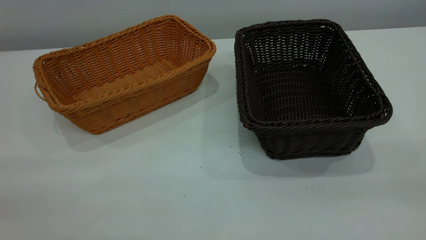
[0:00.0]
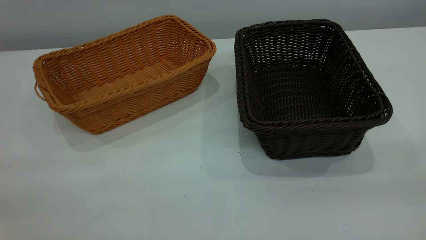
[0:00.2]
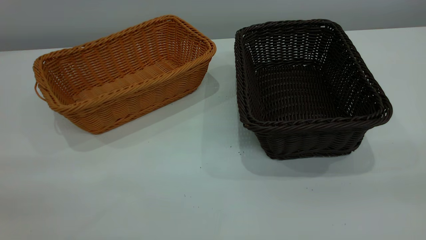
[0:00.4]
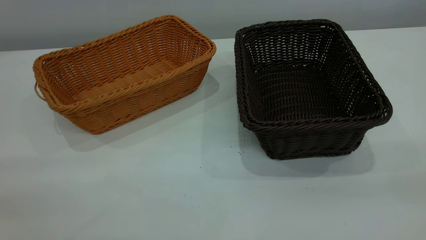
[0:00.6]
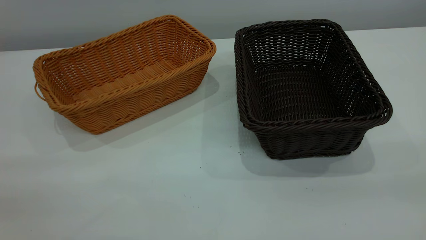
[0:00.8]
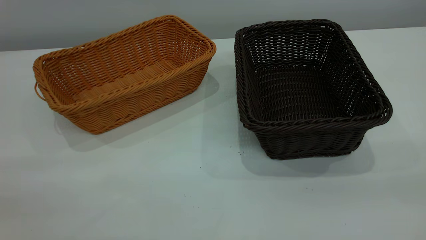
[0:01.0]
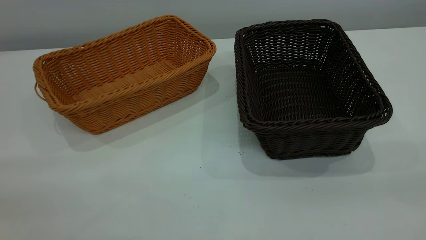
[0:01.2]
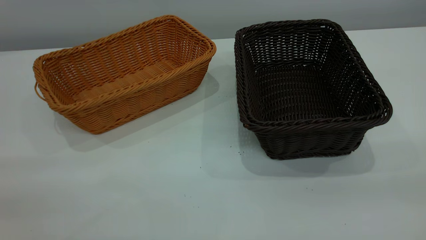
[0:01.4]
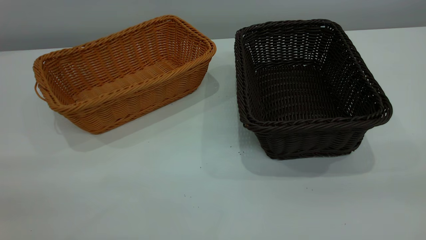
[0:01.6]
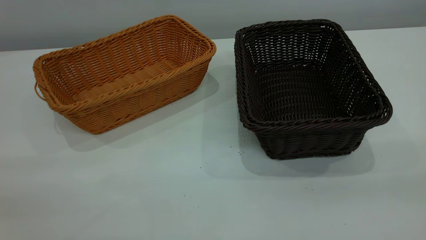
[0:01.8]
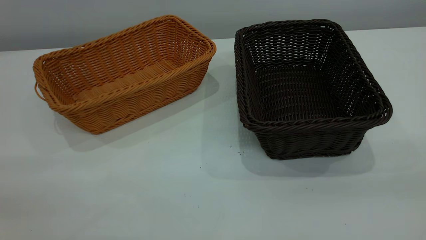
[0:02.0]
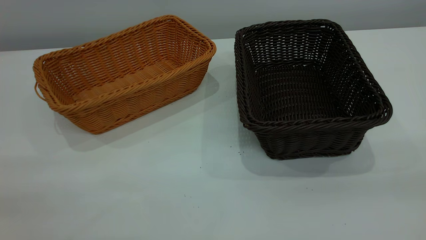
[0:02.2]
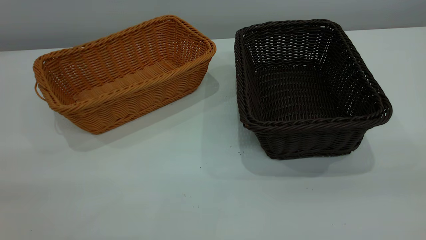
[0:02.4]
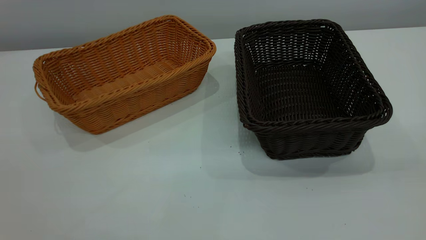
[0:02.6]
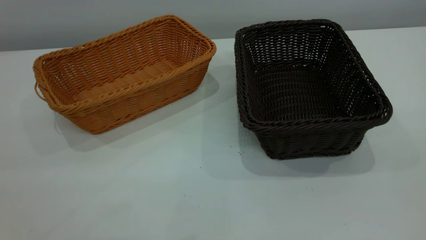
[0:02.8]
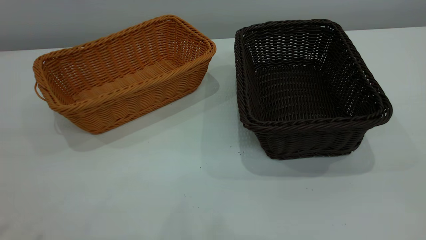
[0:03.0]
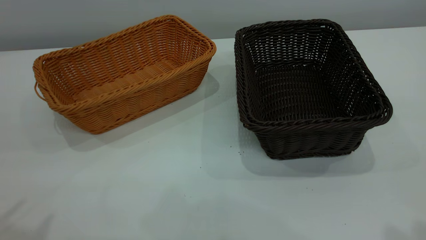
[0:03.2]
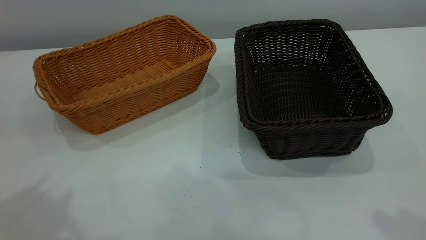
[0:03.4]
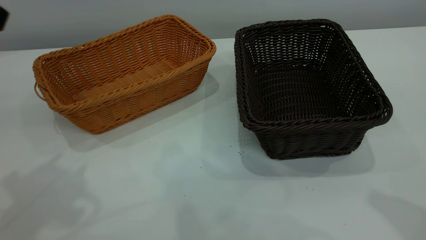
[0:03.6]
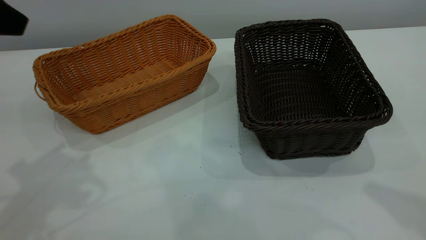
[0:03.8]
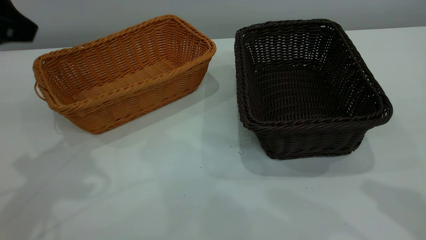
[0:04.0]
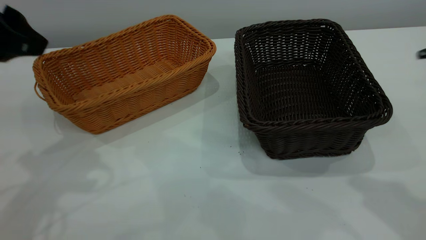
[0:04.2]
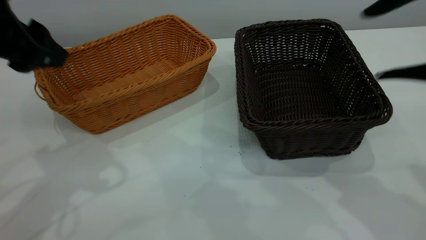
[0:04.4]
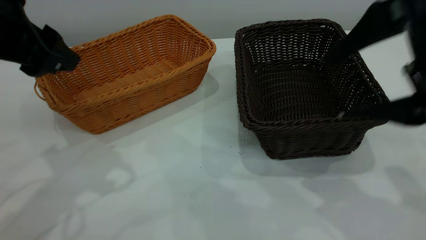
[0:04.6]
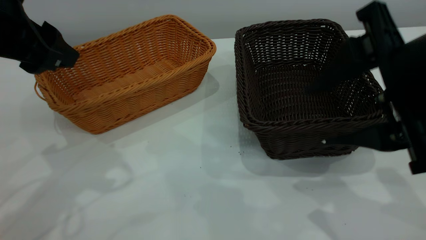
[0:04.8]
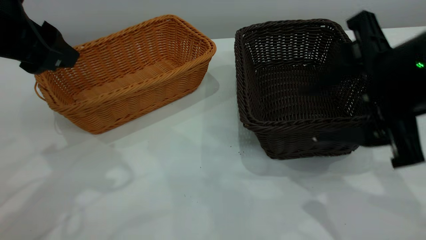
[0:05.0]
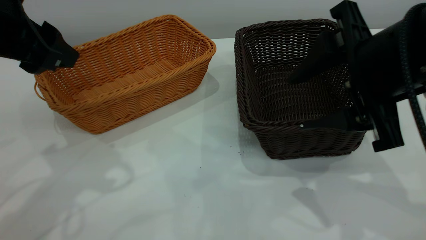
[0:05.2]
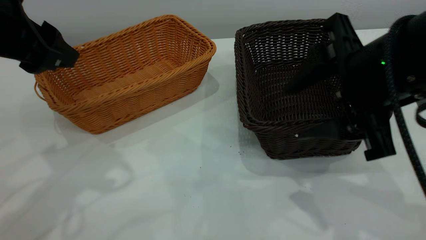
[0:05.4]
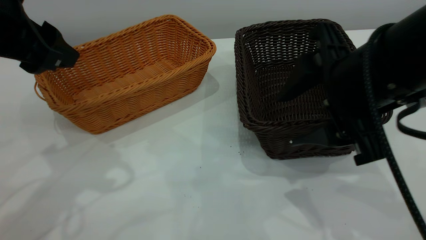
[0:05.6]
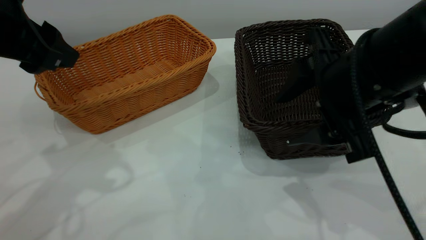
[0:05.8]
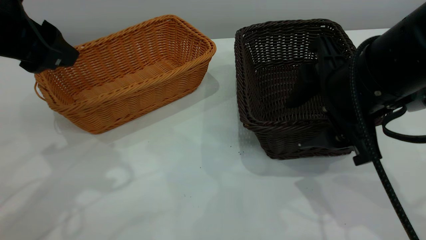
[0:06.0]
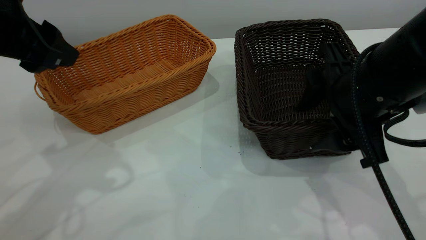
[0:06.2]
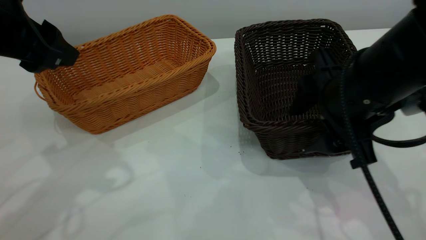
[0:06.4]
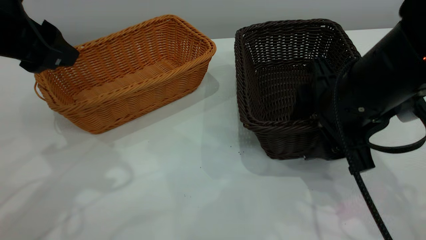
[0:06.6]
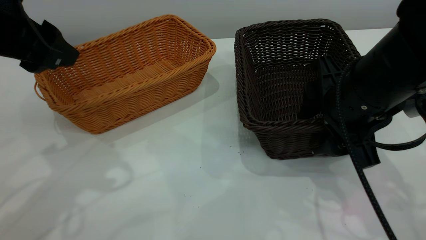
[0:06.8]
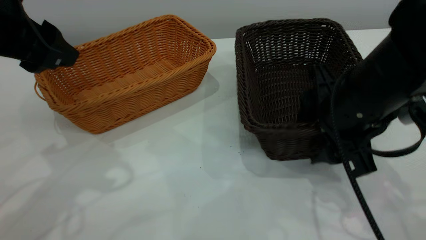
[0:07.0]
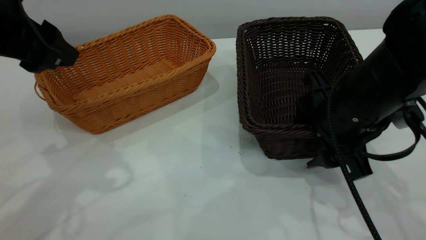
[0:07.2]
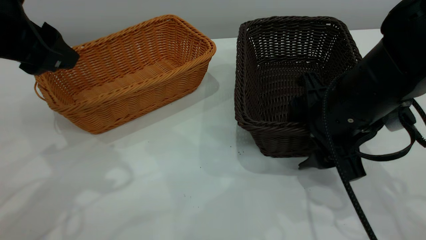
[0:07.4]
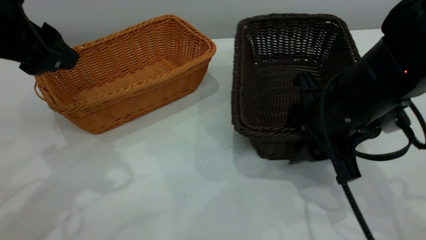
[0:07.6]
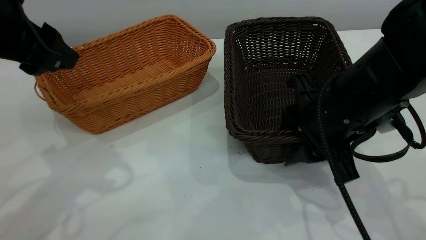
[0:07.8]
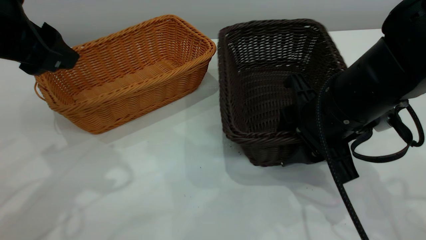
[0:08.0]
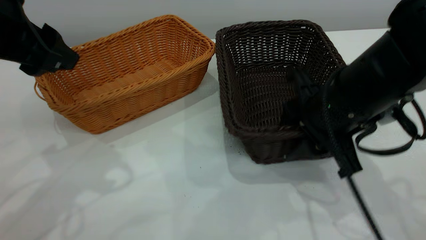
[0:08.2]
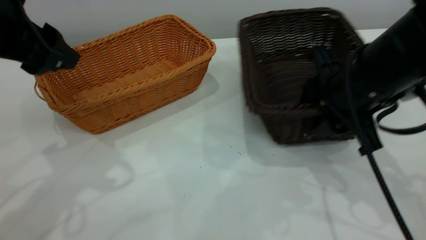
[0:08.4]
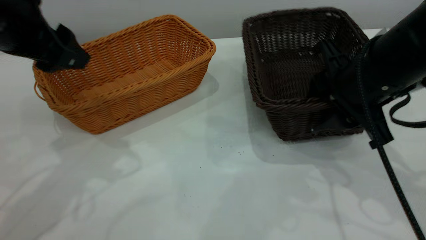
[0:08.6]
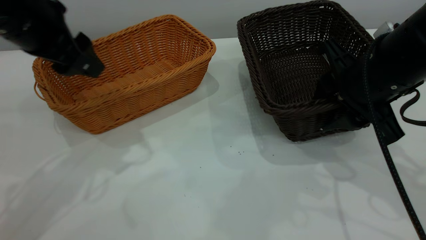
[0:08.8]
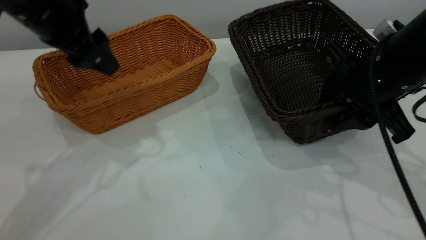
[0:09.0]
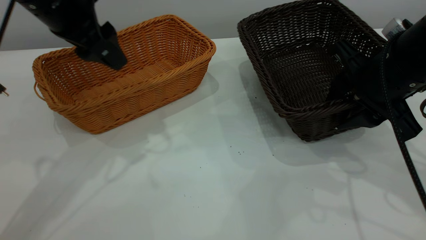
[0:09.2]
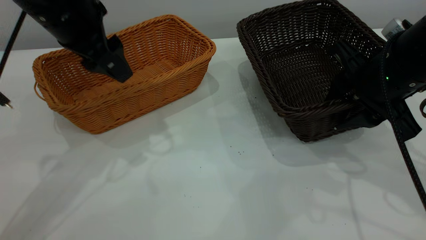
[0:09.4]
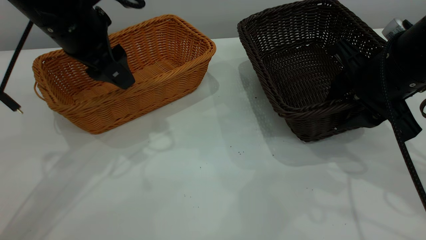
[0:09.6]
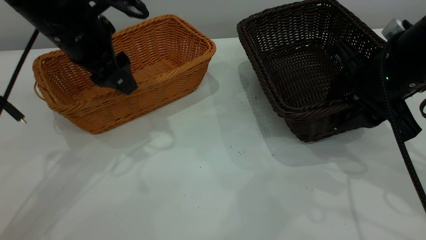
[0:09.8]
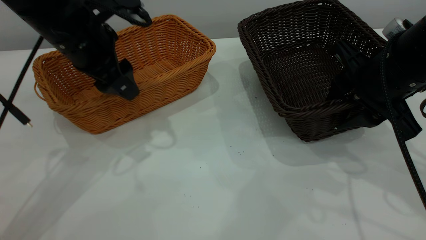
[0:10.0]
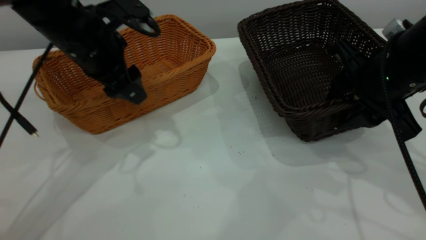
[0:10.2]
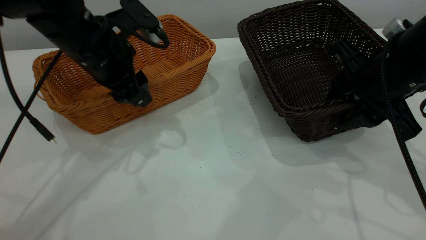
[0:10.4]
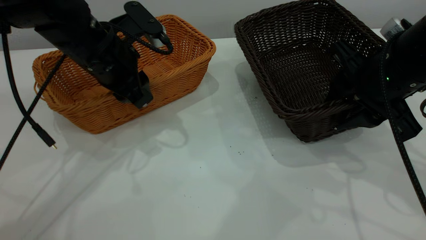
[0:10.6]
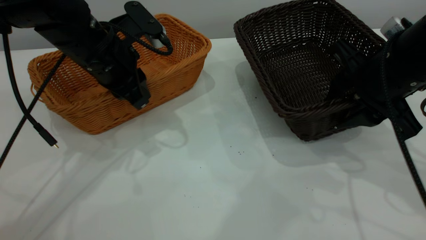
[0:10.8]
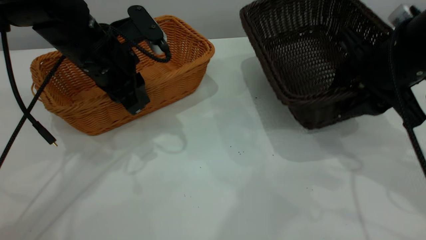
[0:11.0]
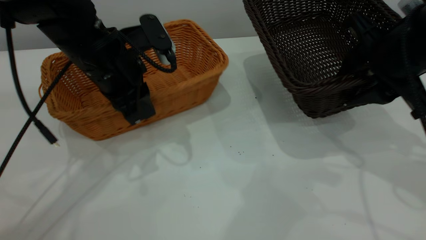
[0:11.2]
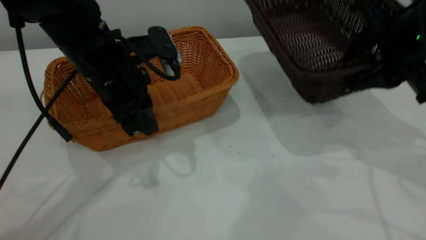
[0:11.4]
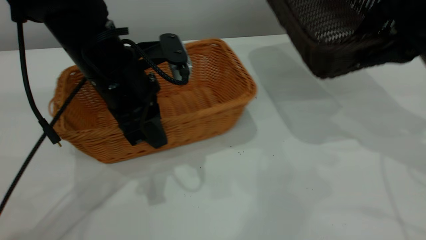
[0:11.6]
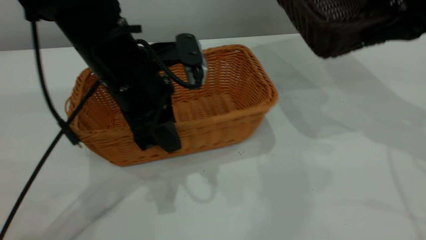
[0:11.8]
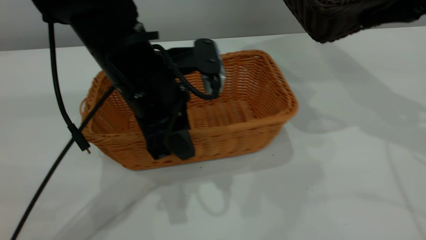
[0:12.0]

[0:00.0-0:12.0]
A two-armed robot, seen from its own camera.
Task of the whole recording: the left gripper grasp the brown basket and place it in the center of the table, the right gripper grasp the black basket and place it inside the brown one.
Step, 0.0 to 9.4 s: Pick up the light basket with the right gripper.
0.0 to 1.6 s: The two grippers keep their place.
3.0 to 4.4 s: Both grippers travel together forward and downward, about 20 cm.
4.4 to 6.0 s: The right gripper travels downward, to the left and forward by about 15 cm.
6.0 to 7.6 s: The right gripper changes place by roughly 5 cm.
7.6 to 9.0 s: The left gripper goes some 5 cm forward; the right gripper heads to the right, covering roughly 5 cm.
9.0 to 10.4 s: The left gripper travels downward by some 10 cm.
10.4 to 12.0 s: The left gripper goes about 10 cm to the right and backward, and closes up; the right gripper travels upward, to the right and forward by approximately 15 cm.

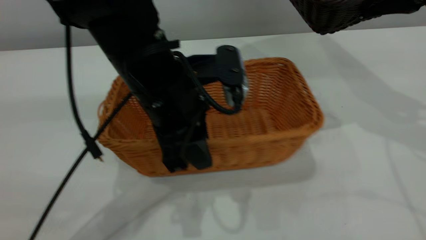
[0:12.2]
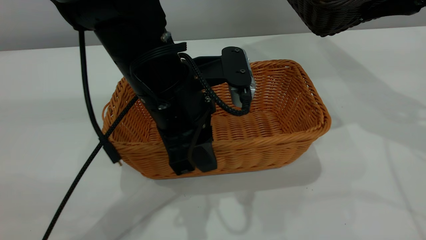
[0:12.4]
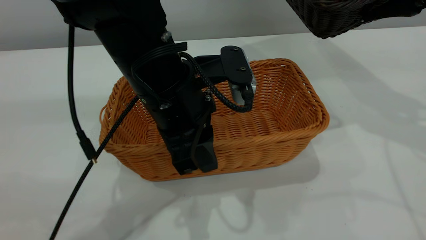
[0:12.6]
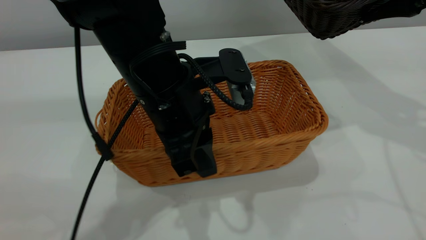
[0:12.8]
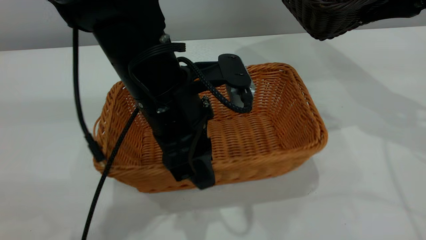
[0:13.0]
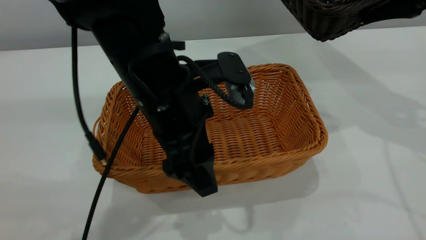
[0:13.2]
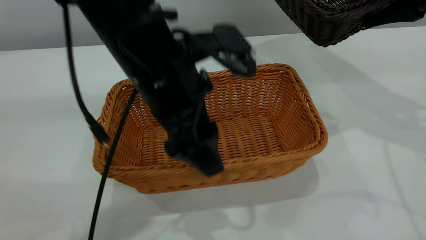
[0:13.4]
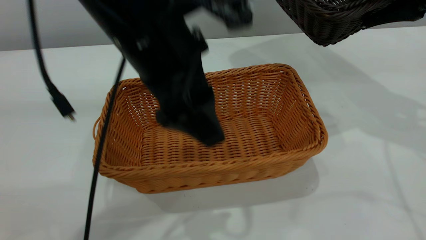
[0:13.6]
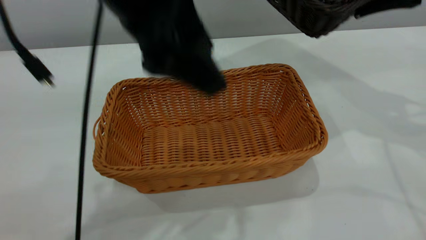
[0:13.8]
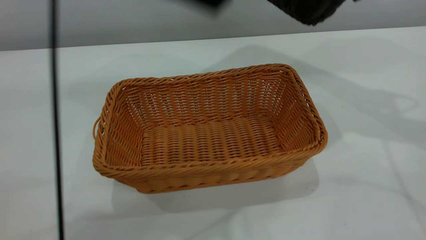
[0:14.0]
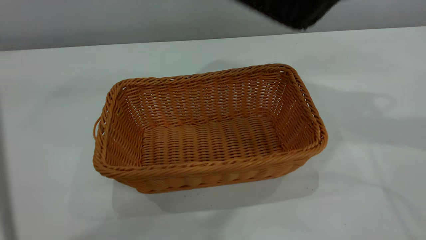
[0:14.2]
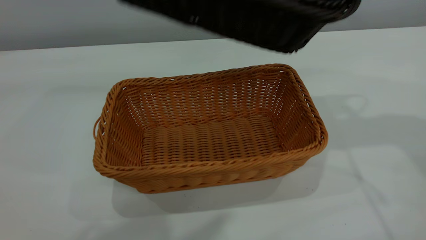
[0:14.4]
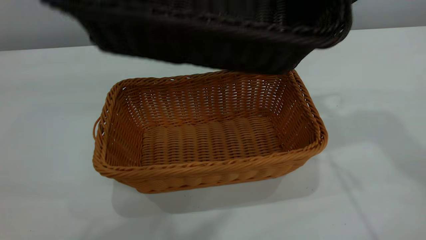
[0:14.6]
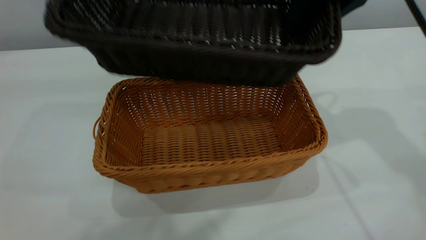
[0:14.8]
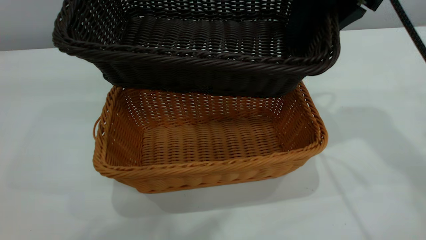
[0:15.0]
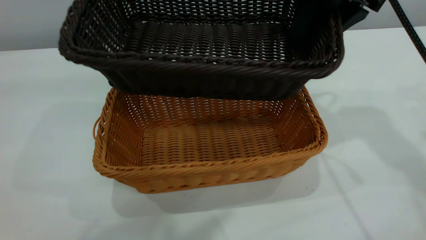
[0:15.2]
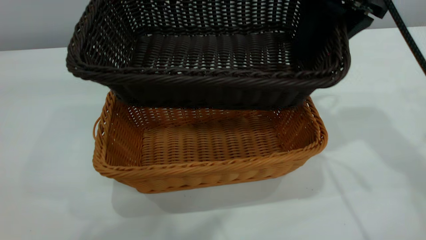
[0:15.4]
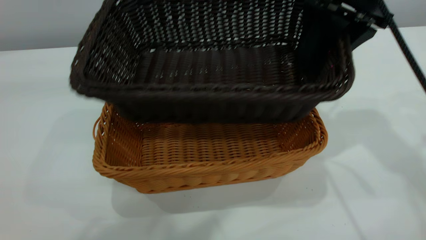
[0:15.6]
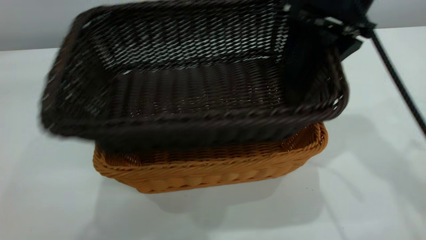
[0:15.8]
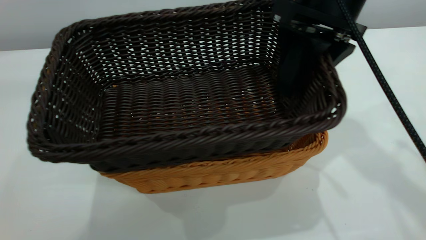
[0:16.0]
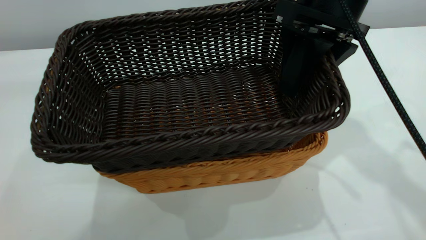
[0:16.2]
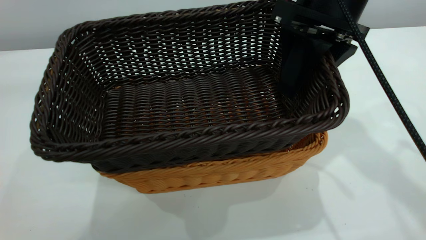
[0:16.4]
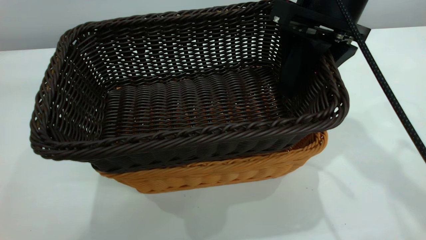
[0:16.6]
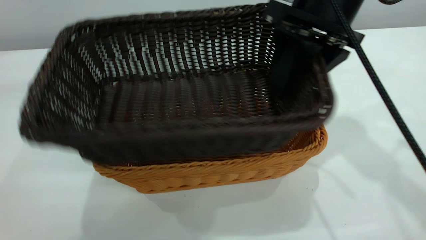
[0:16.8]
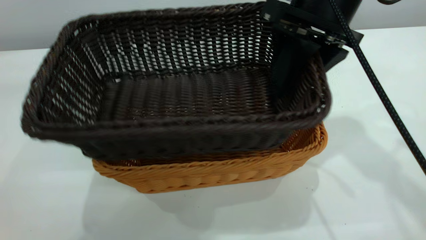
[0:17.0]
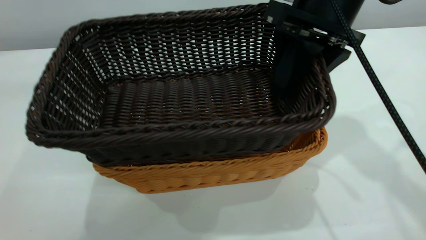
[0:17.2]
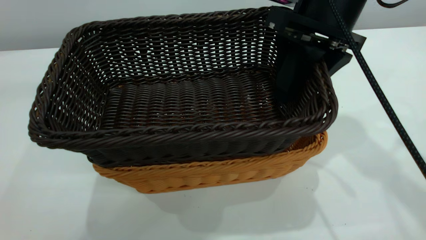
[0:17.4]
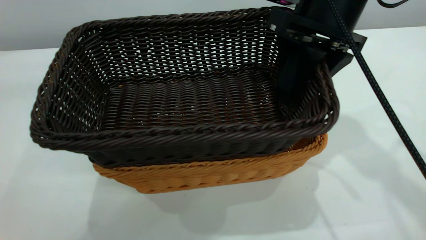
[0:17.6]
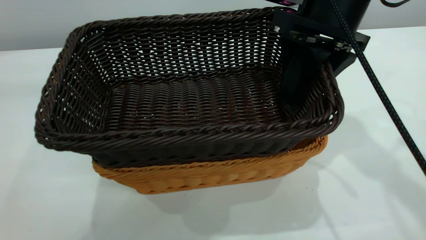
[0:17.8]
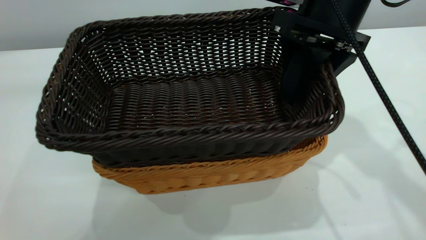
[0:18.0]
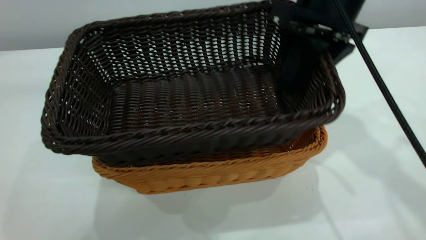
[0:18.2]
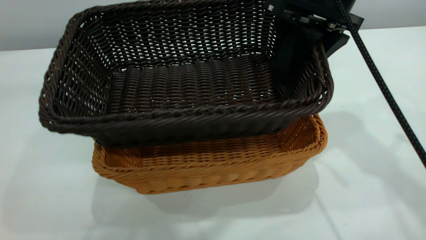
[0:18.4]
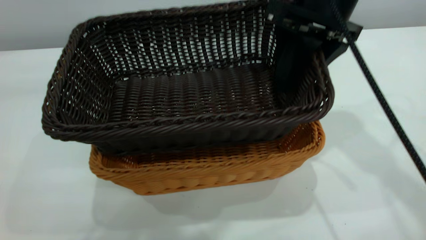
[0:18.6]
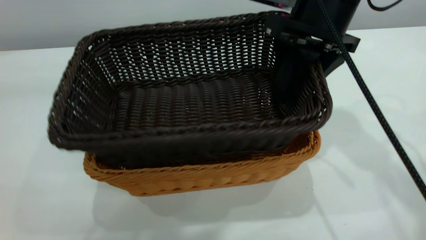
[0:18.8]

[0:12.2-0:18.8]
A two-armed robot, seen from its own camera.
Task of the whole recording: the left gripper grasp the brown basket and place it in the center of the table, the right gripper grasp the black basket and place it inside the brown one.
12.2 to 13.8 s: The left gripper shifts approximately 15 cm upward, and opens up.
13.8 to 15.4 s: The left gripper goes some 20 cm upward. The right gripper goes roughly 10 cm to the left.
15.4 to 17.2 s: The right gripper moves roughly 5 cm.
17.2 to 18.8 s: The grippers make only small movements.
